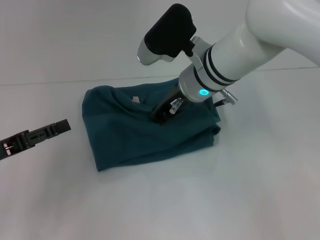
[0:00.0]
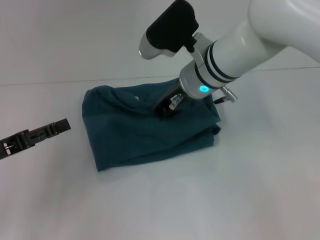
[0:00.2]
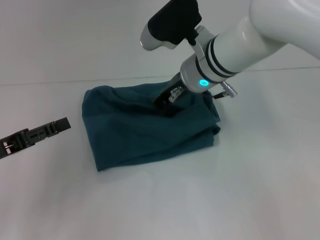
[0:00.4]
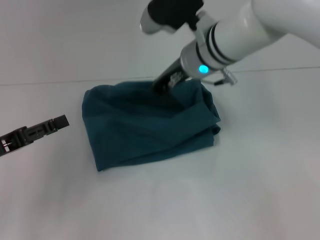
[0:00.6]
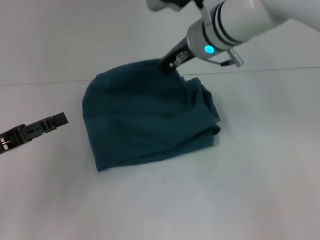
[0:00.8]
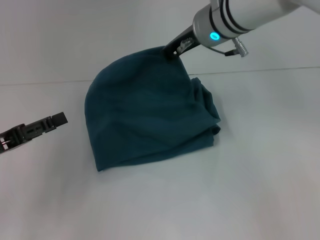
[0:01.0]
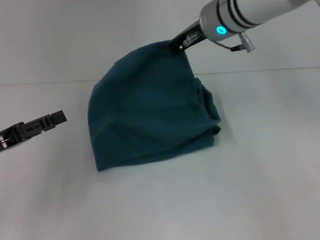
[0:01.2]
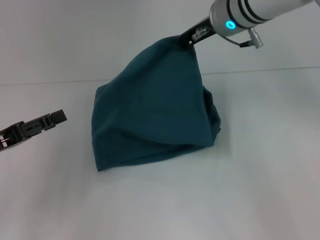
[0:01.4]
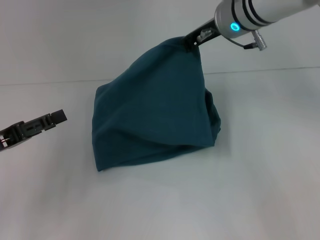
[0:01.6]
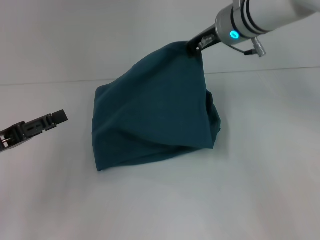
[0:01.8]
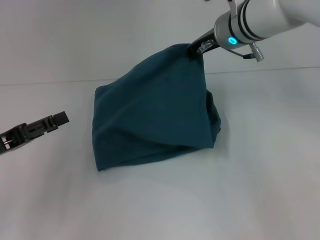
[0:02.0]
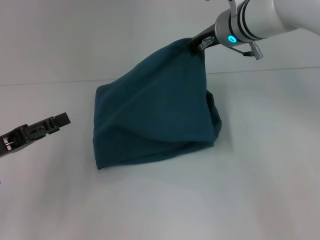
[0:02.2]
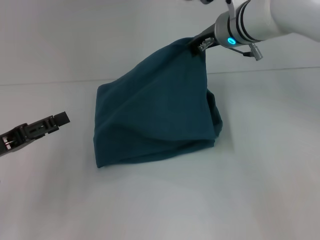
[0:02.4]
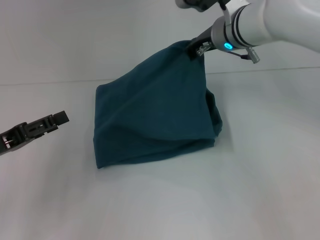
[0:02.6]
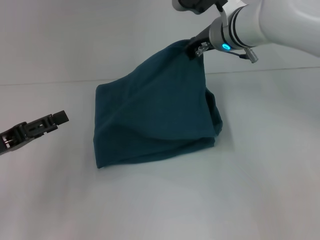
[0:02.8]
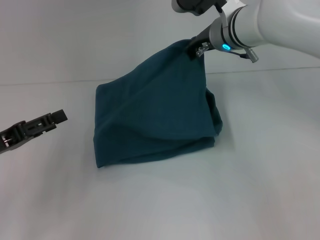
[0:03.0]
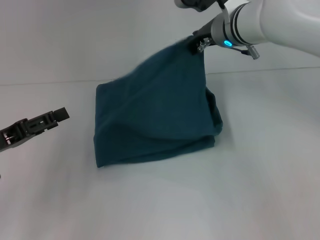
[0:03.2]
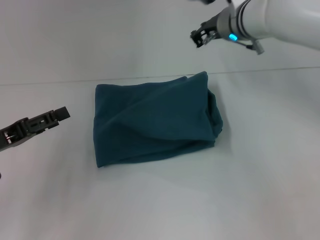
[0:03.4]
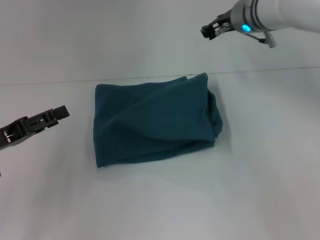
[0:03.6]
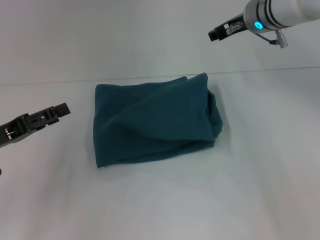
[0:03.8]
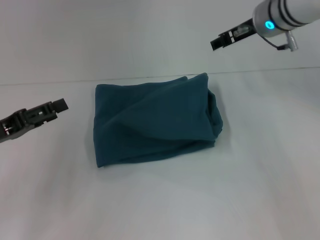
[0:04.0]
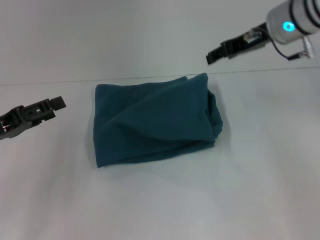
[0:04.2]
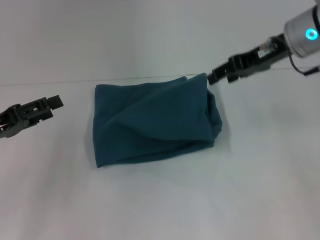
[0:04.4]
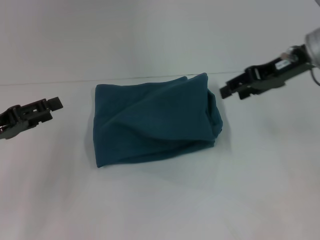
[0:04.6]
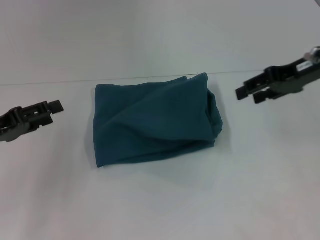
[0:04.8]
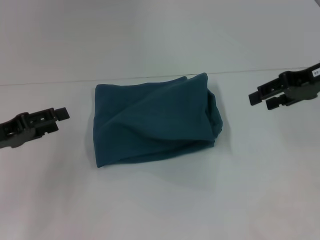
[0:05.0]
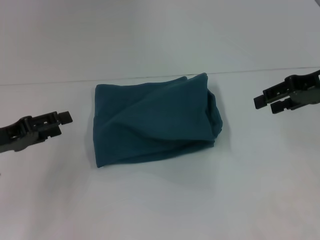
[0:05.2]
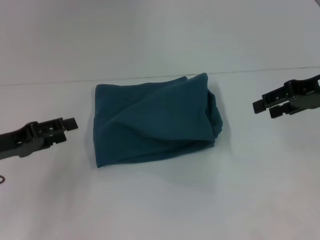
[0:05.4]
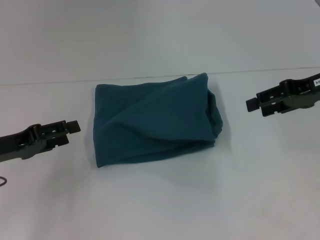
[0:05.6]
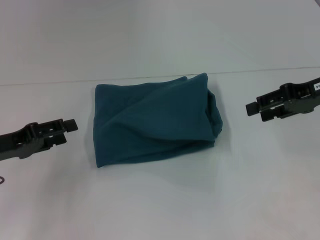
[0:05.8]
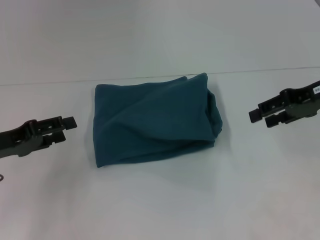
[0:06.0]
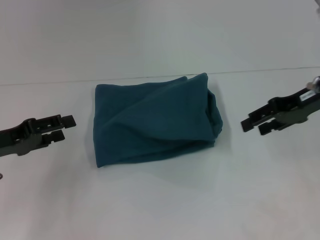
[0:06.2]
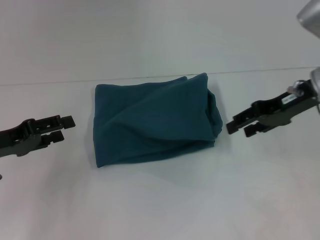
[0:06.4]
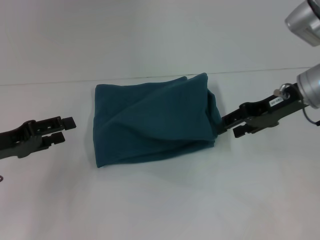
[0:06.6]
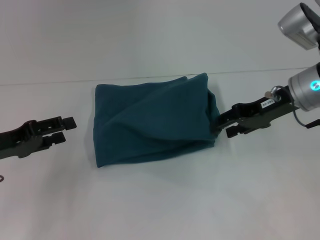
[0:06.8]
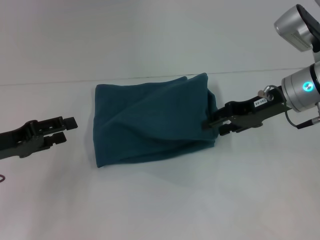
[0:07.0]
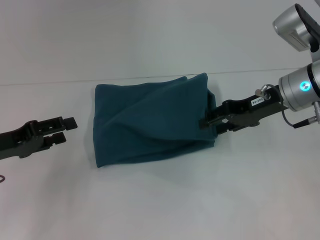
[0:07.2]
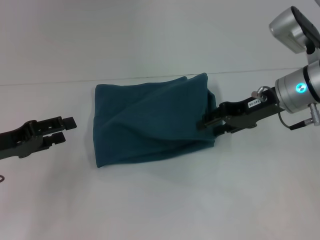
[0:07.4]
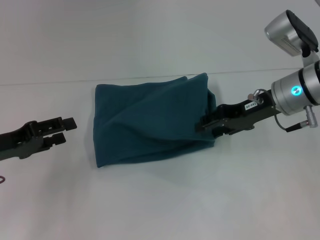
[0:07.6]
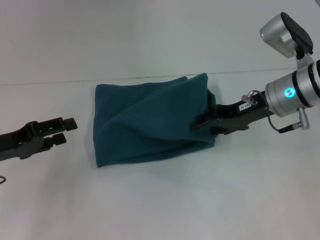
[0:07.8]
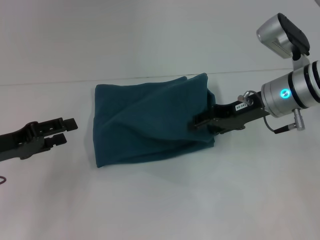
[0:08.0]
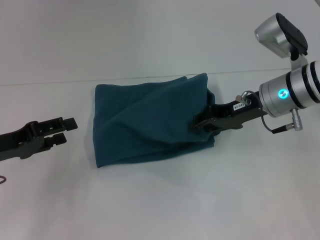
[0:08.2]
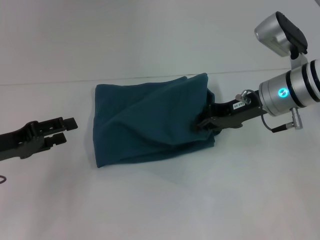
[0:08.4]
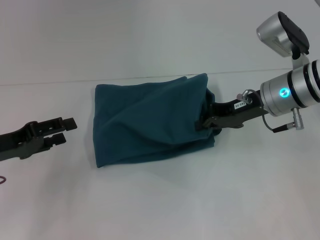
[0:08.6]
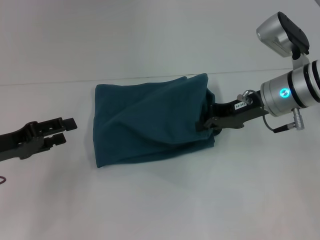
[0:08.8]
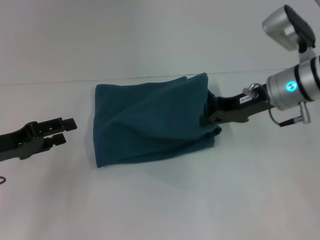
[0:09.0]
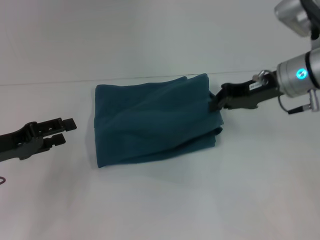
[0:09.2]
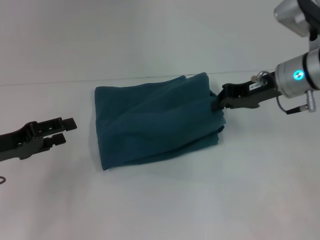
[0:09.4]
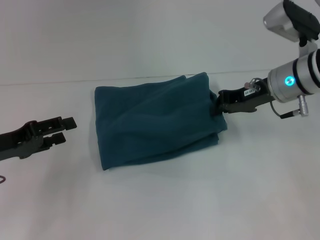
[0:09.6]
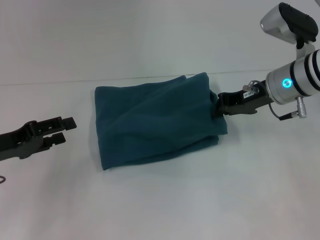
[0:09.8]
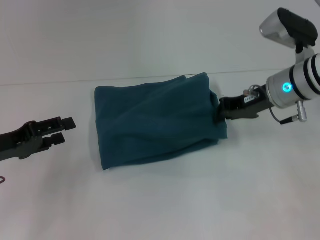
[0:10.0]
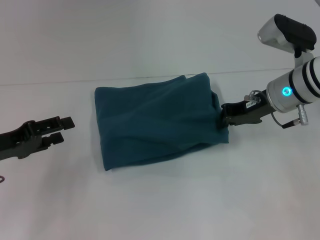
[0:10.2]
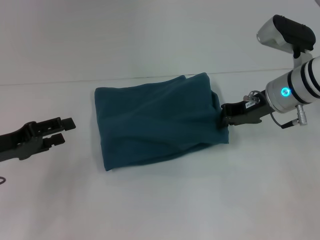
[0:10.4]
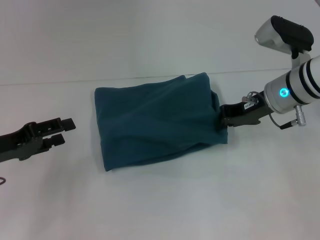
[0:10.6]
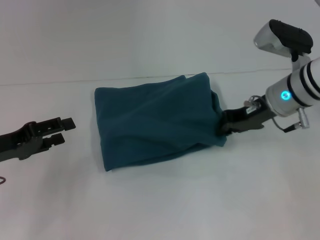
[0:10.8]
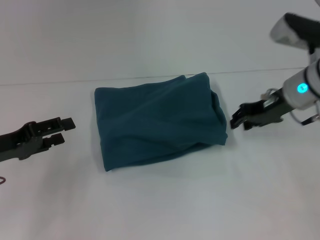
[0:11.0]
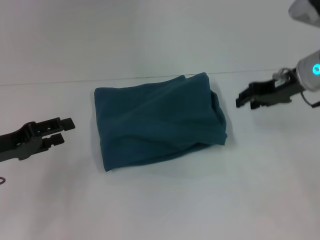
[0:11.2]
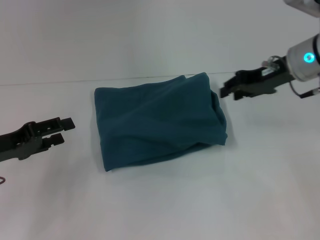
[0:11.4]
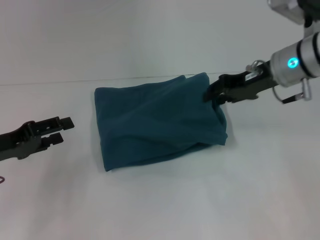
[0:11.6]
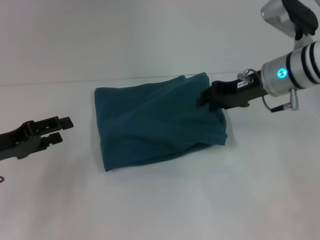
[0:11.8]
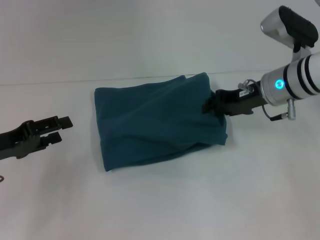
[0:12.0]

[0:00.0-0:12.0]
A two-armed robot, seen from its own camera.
0:00.0 to 0:01.6: The right gripper moves upward and to the right, some 10 cm.
0:01.6 to 0:03.0: There are only small adjustments of the grippers.
0:03.0 to 0:04.4: The right gripper heads to the right, covering about 10 cm, and opens up.
0:04.4 to 0:06.0: The right gripper moves to the right, roughly 10 cm.
0:06.0 to 0:07.6: The right gripper is displaced to the left and downward by about 10 cm.
0:07.6 to 0:09.0: The right gripper closes its fingers.
0:09.0 to 0:10.4: The grippers make only small movements.
0:10.4 to 0:12.0: The right gripper opens up.

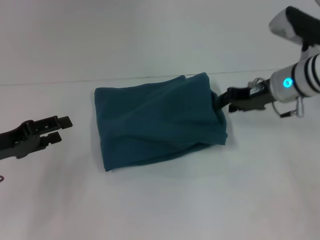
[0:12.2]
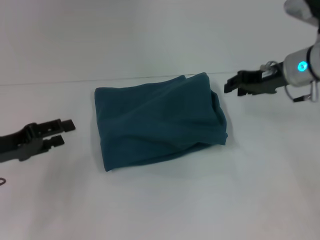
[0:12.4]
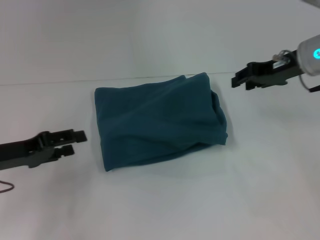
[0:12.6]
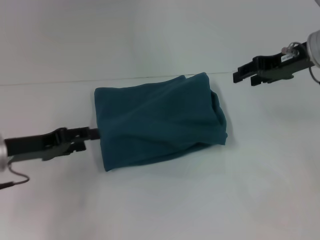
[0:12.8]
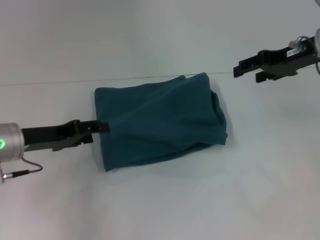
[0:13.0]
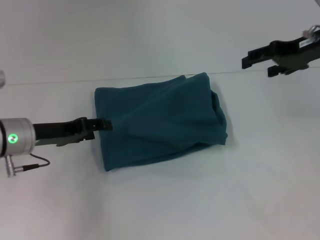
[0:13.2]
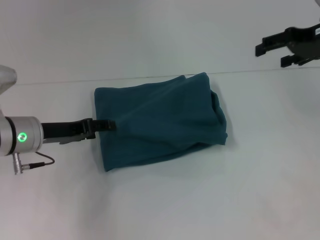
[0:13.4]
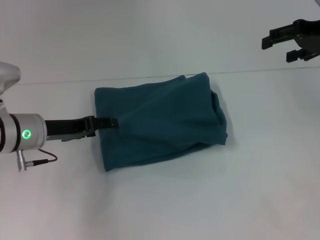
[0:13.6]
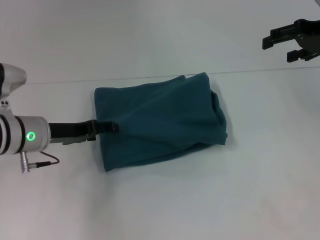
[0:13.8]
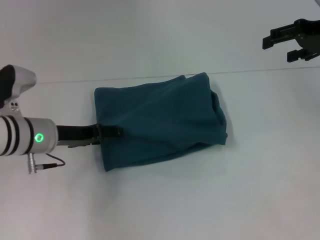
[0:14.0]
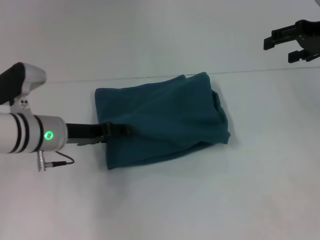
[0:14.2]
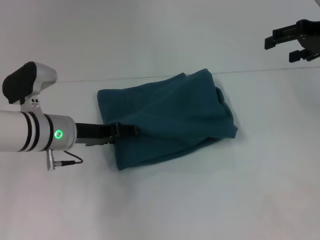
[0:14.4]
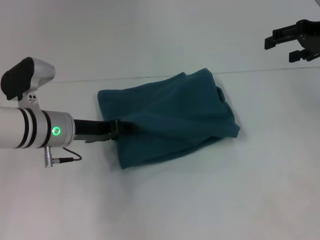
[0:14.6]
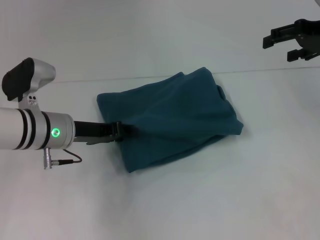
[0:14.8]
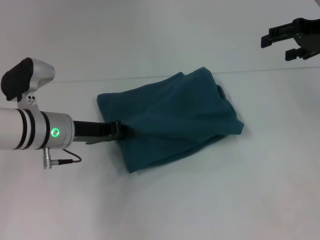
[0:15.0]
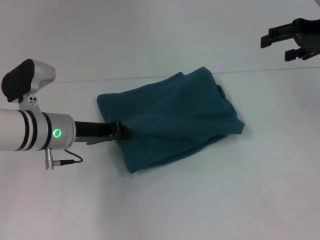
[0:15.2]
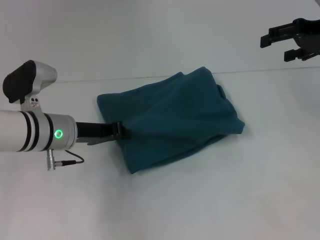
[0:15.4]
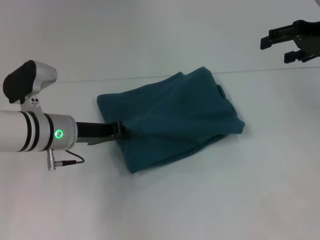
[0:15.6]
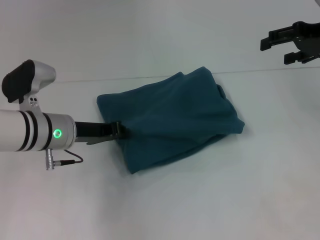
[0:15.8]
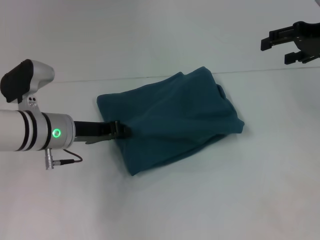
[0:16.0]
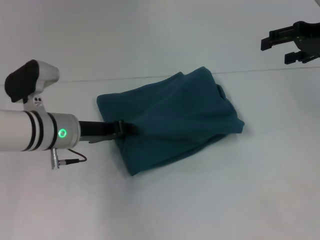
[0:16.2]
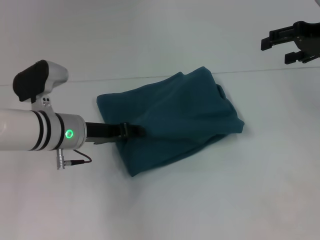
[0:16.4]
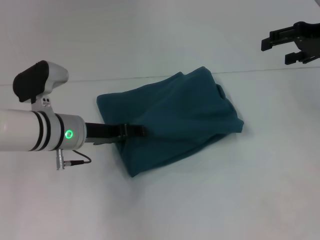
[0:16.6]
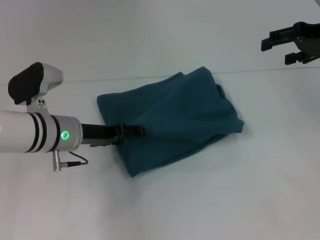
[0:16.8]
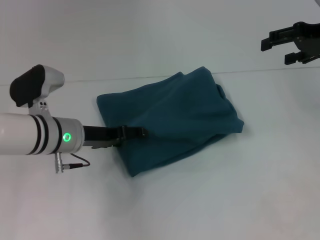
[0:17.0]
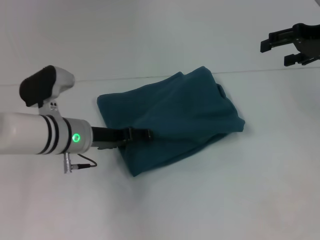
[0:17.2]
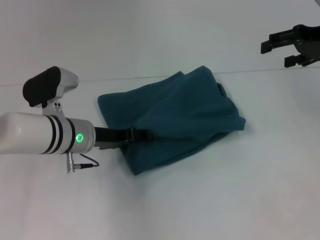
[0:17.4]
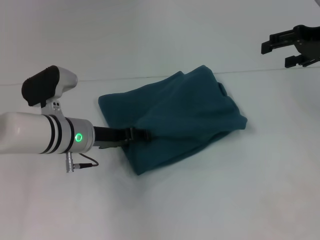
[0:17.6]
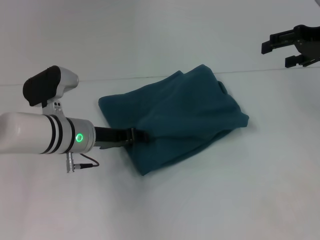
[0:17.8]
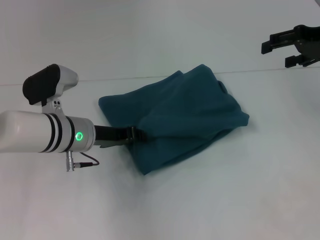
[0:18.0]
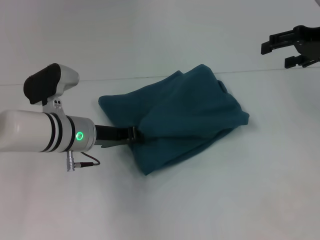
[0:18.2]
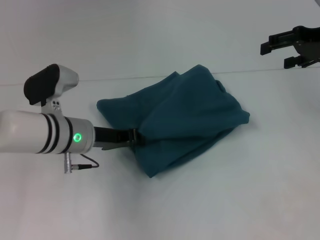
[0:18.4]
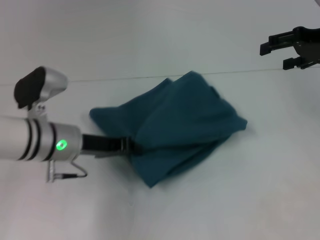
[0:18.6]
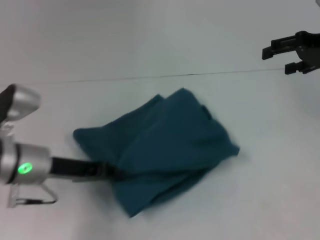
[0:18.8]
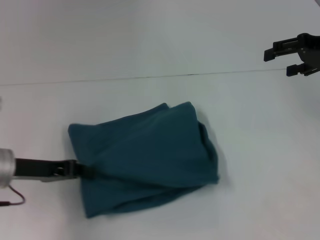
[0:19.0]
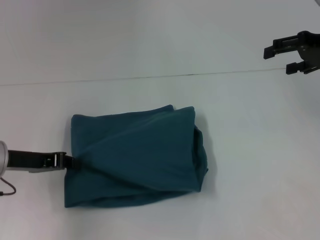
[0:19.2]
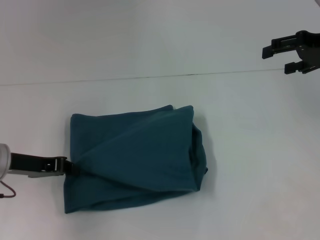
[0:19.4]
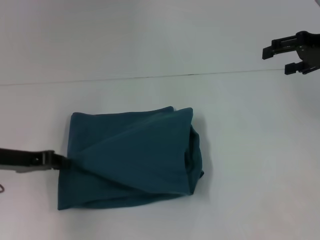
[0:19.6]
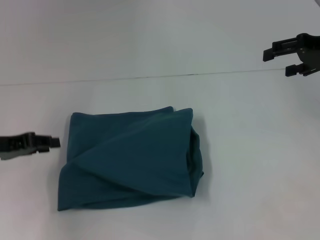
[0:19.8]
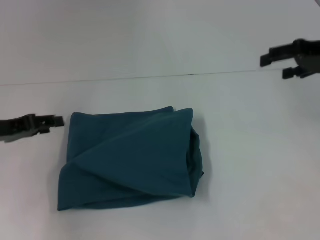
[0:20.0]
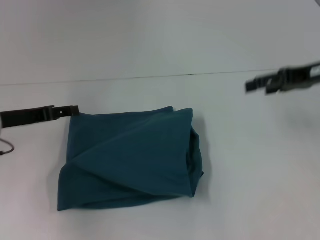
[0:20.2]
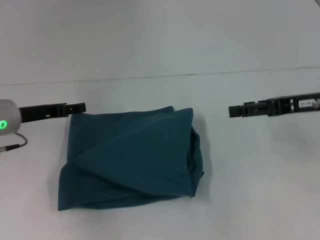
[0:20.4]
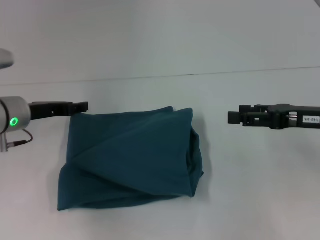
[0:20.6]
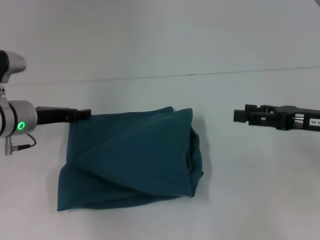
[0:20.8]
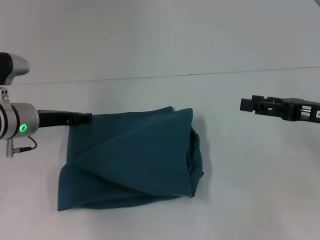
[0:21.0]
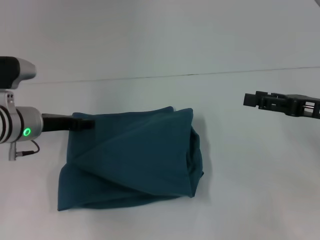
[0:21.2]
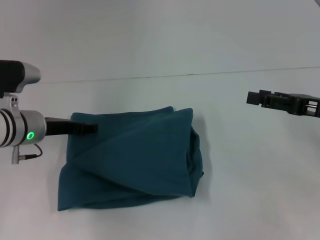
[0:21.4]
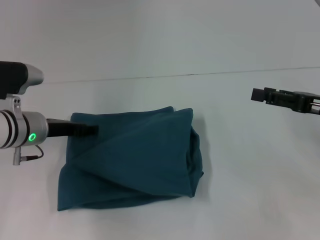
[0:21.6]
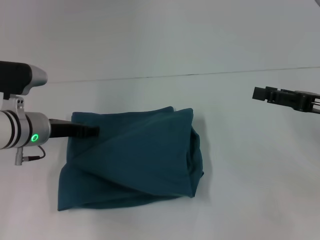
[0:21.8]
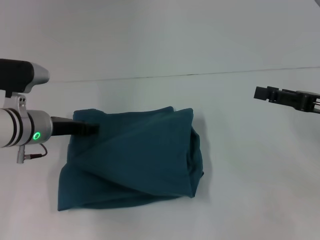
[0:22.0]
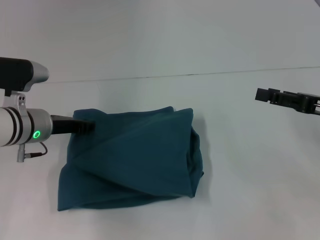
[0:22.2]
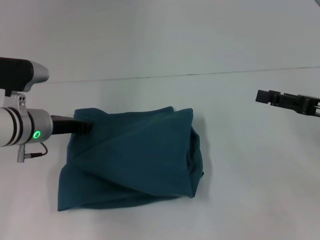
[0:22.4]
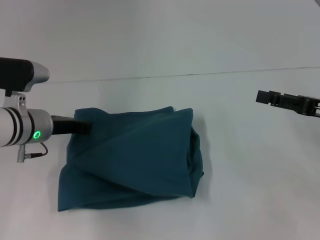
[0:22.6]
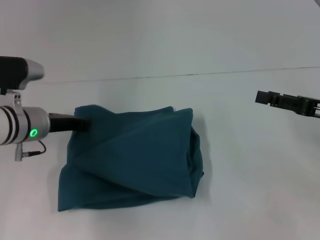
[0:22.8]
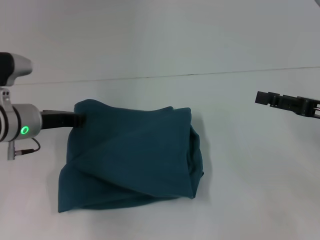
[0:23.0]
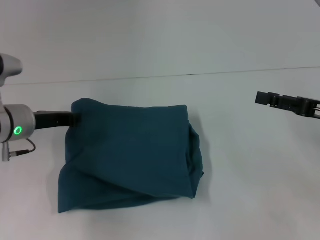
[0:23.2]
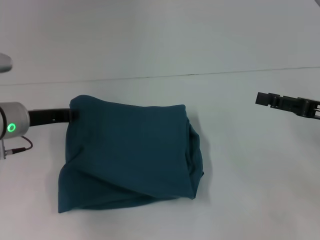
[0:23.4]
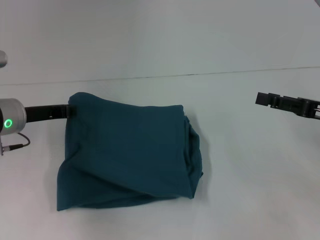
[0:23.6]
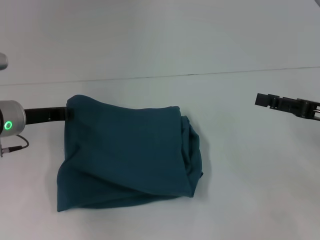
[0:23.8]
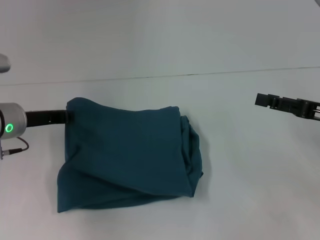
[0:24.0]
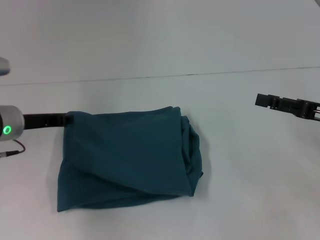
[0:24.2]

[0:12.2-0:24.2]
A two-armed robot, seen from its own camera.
0:12.2 to 0:13.8: The right gripper goes roughly 15 cm upward and to the right, and opens; the left gripper goes about 10 cm to the right and forward.
0:13.8 to 0:15.2: The left gripper closes its fingers.
0:15.2 to 0:16.6: The left gripper closes and opens again.
0:16.6 to 0:18.2: The left gripper opens and closes again.
0:18.2 to 0:19.8: The left gripper goes some 15 cm to the left.
0:19.8 to 0:21.2: The right gripper is displaced backward and downward by roughly 15 cm, while the left gripper heads to the right and forward, covering some 10 cm, and opens.
0:21.2 to 0:22.6: The left gripper closes up.
0:22.6 to 0:24.2: There are only small adjustments of the grippers.
